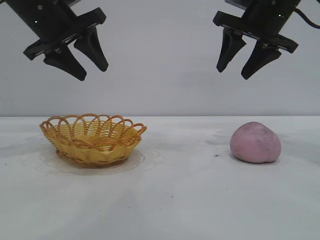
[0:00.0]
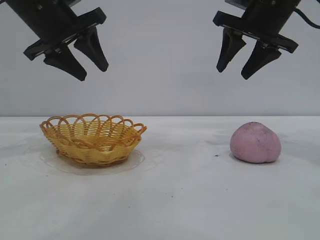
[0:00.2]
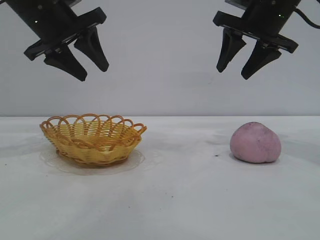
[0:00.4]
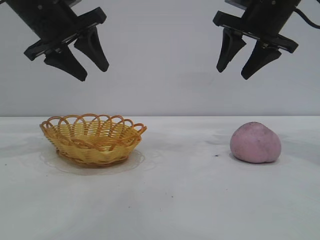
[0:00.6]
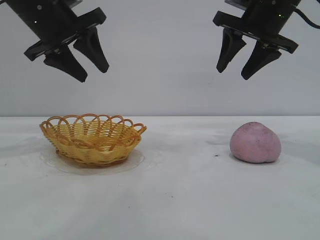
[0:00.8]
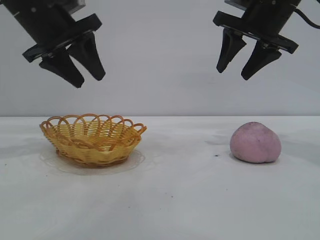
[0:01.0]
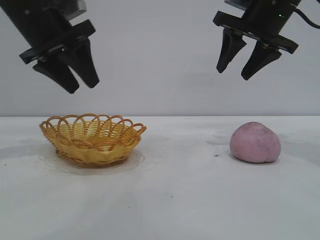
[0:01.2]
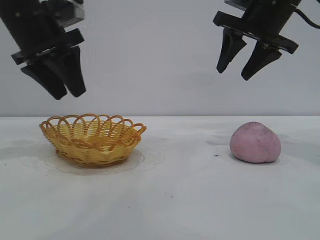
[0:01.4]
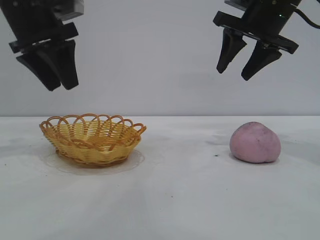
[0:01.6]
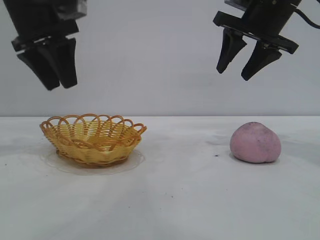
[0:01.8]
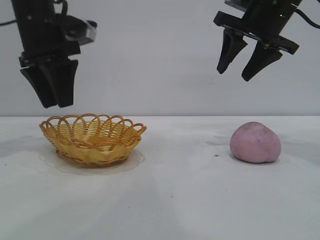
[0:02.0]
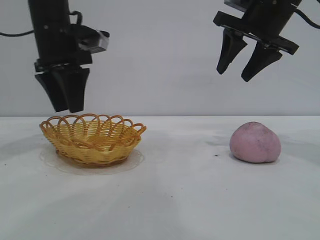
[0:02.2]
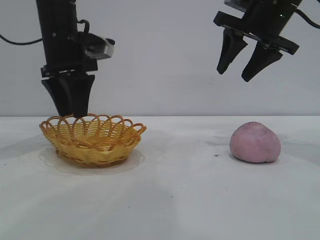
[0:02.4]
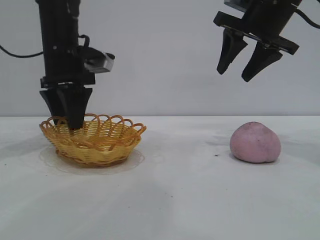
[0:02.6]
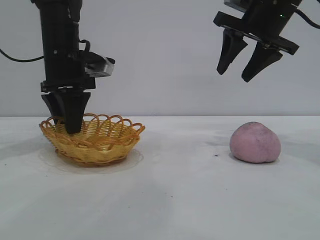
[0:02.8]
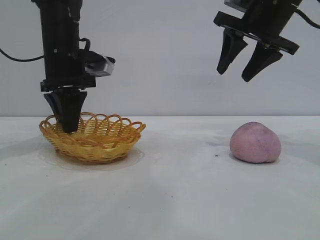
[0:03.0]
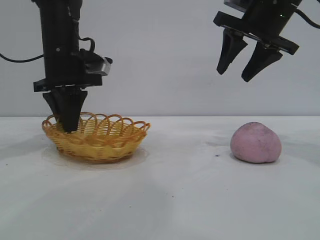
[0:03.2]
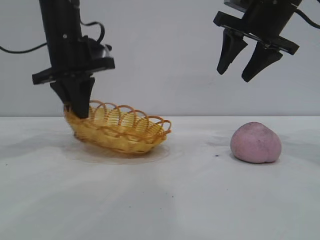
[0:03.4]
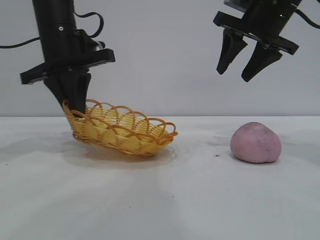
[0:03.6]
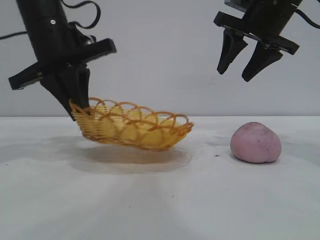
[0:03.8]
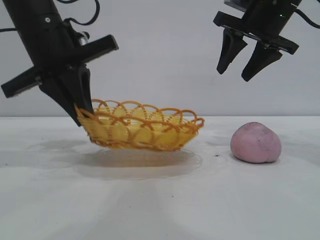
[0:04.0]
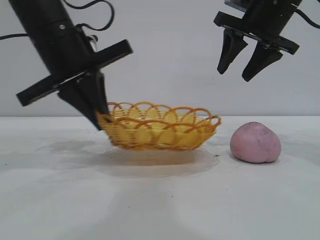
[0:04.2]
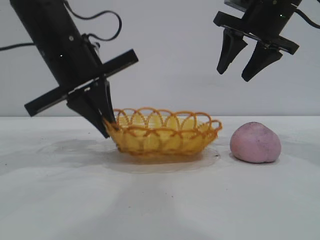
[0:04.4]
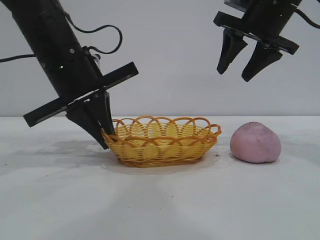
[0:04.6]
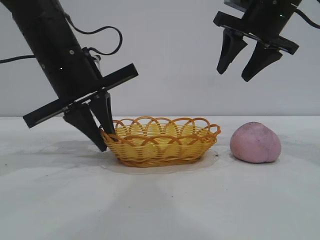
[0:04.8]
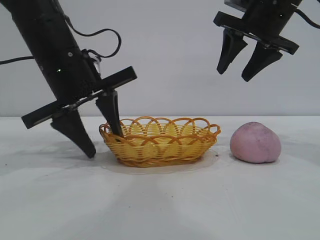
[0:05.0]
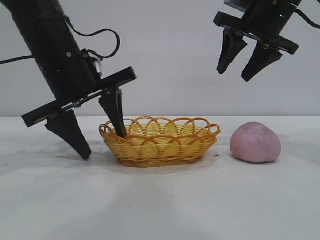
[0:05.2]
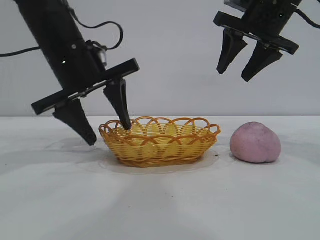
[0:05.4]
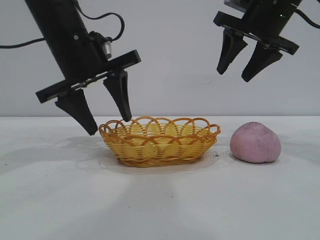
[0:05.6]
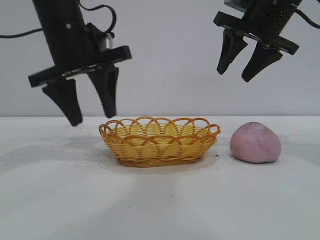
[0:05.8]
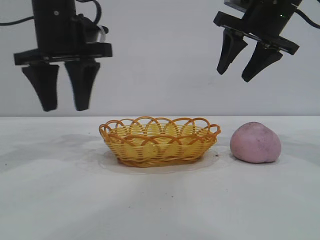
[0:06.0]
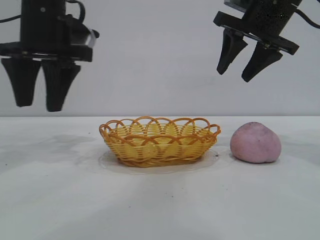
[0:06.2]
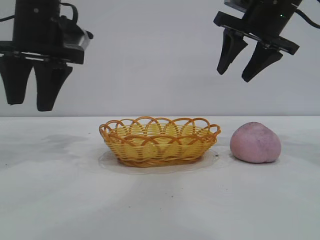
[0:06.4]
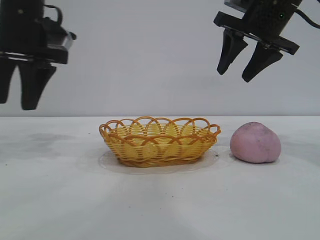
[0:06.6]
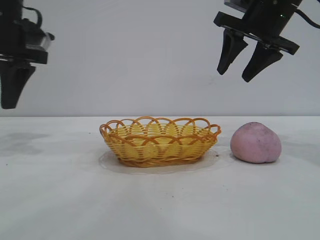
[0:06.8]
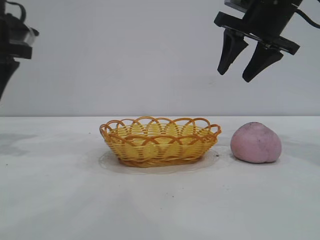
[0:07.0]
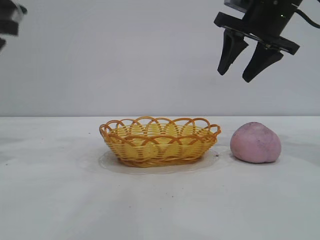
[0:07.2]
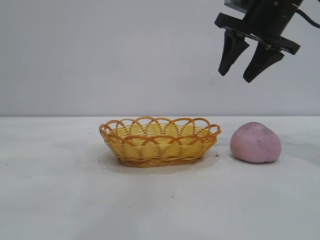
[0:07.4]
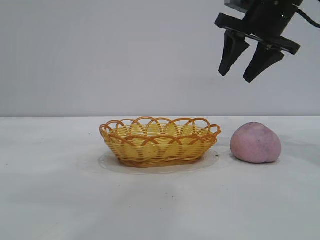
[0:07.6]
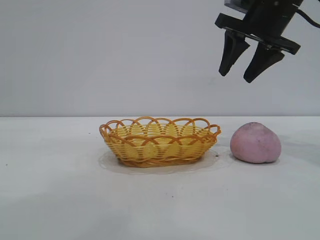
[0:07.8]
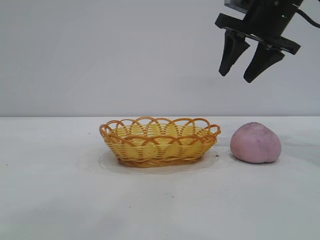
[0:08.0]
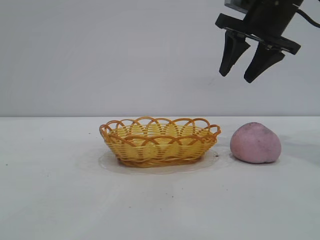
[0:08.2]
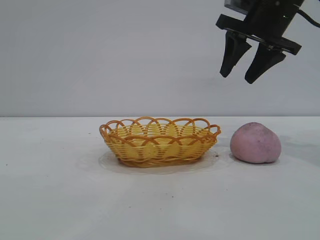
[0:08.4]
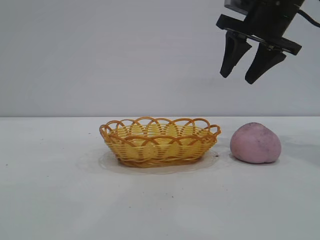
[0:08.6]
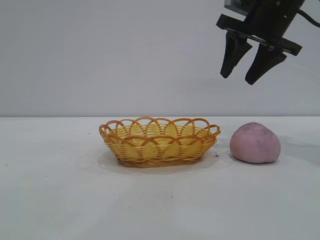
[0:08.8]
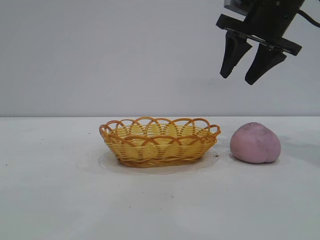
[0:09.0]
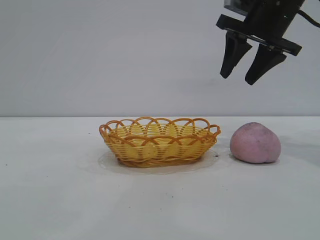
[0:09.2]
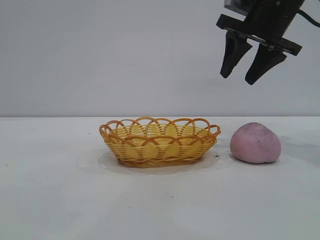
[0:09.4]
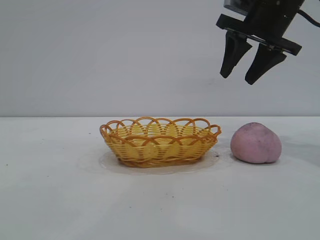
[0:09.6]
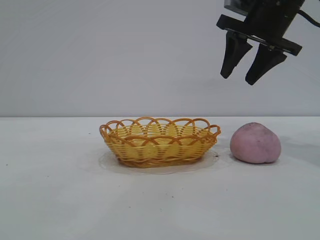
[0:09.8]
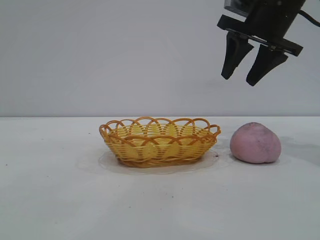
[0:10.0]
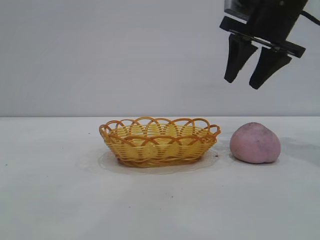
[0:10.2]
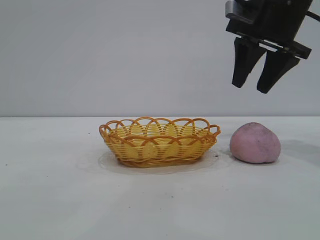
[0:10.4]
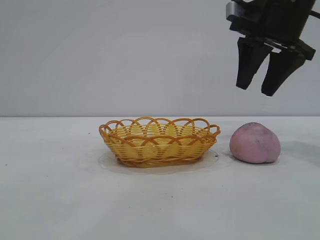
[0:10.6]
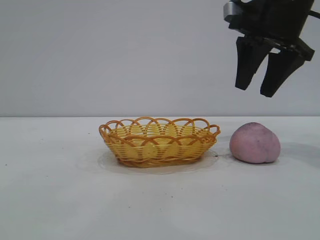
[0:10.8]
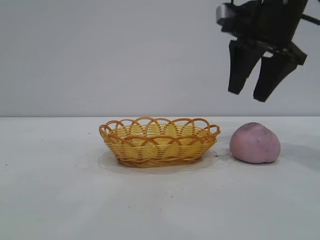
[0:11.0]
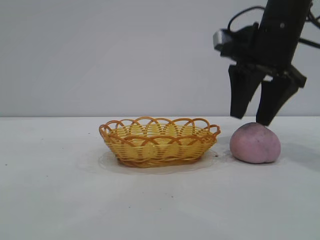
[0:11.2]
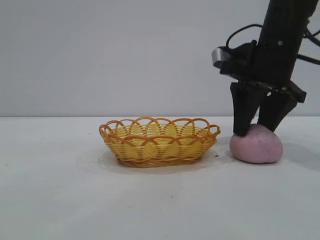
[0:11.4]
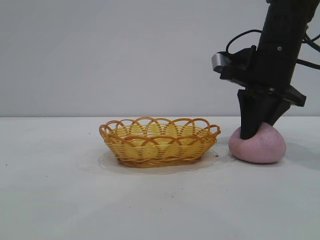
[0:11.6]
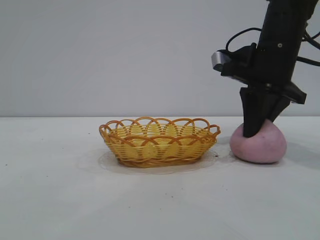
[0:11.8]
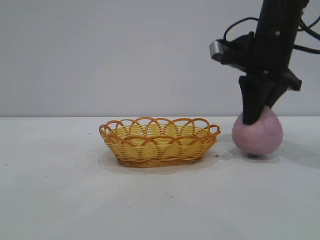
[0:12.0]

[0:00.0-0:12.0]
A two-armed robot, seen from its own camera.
Task of the whole recording: pick up the peach and put it into the basket.
Step, 0:00.0 to 0:06.0: Move the basket to the center of view.

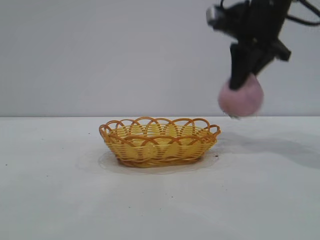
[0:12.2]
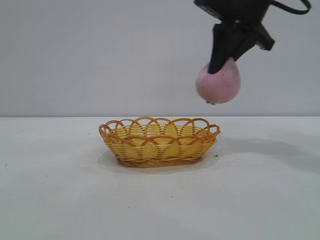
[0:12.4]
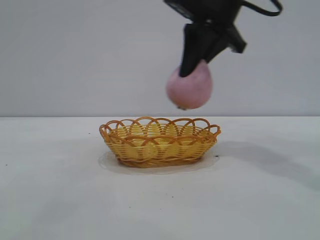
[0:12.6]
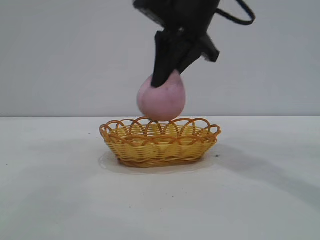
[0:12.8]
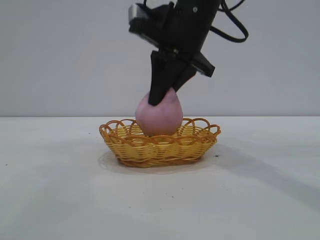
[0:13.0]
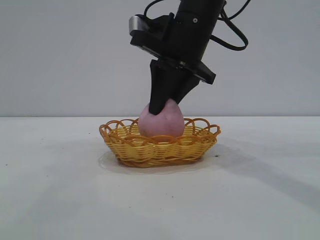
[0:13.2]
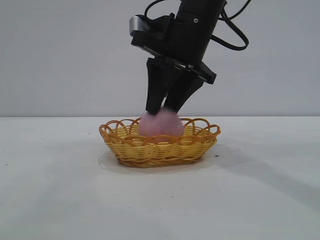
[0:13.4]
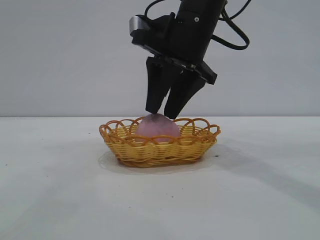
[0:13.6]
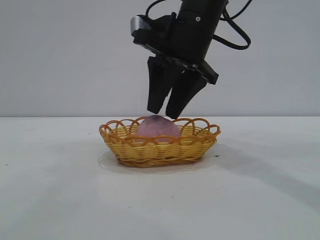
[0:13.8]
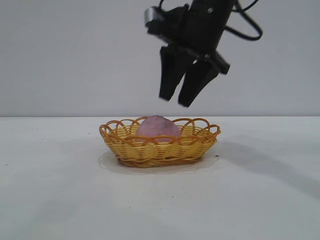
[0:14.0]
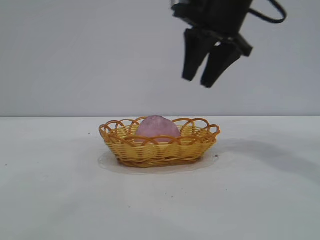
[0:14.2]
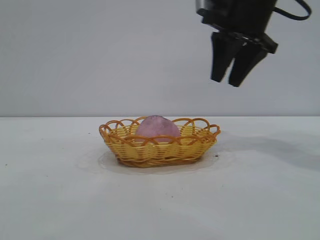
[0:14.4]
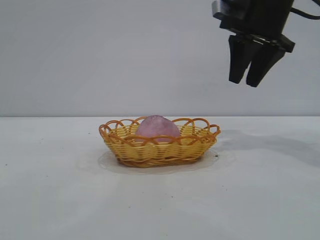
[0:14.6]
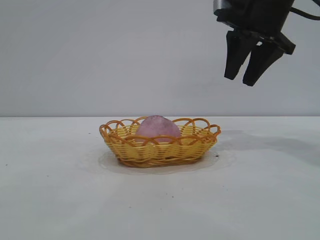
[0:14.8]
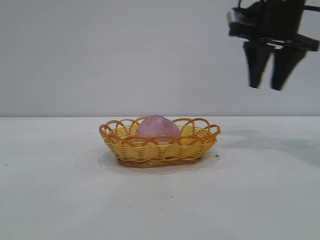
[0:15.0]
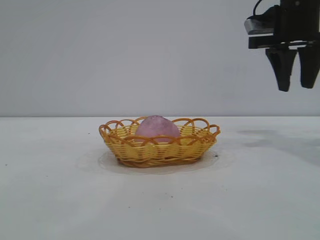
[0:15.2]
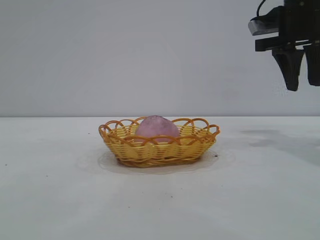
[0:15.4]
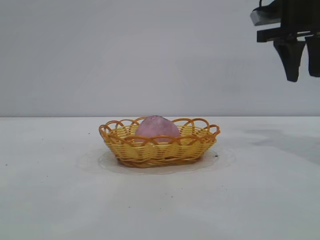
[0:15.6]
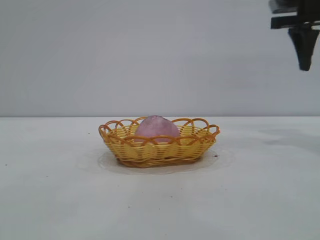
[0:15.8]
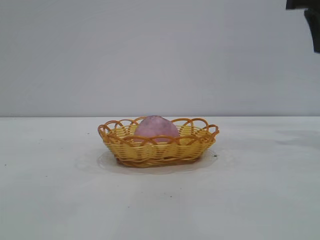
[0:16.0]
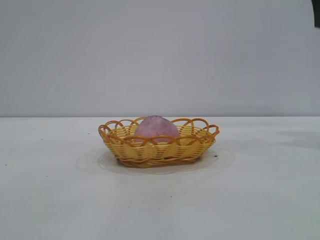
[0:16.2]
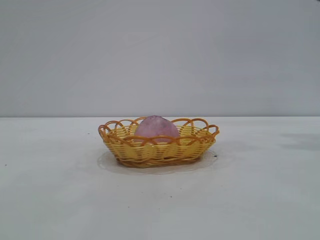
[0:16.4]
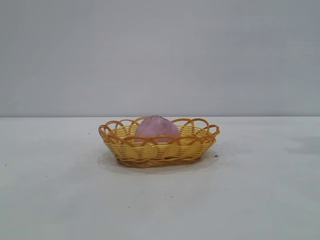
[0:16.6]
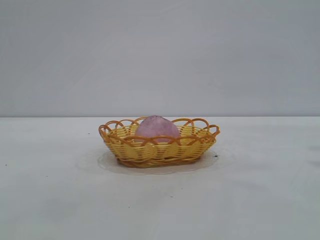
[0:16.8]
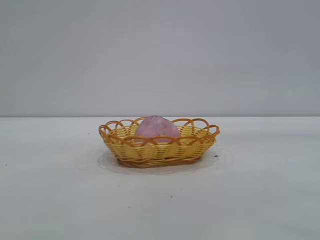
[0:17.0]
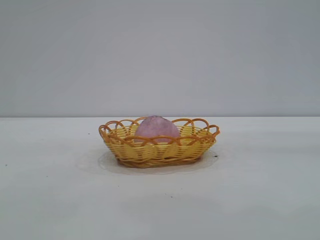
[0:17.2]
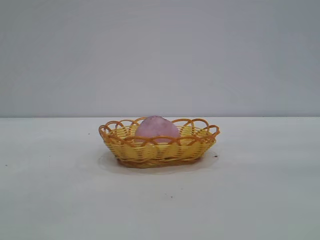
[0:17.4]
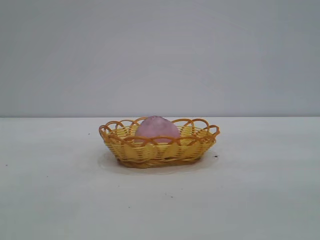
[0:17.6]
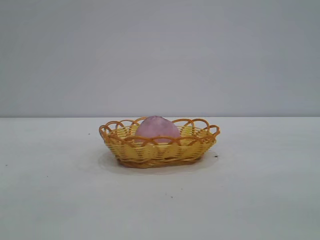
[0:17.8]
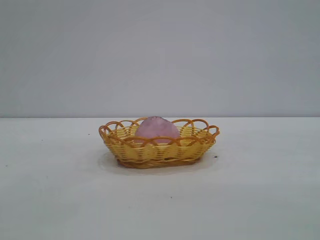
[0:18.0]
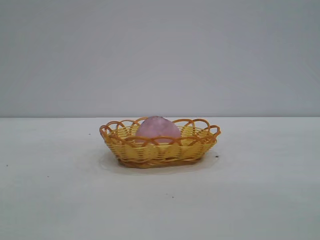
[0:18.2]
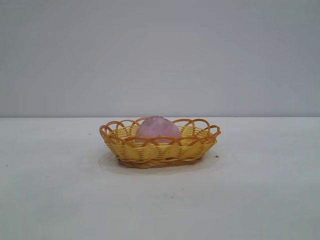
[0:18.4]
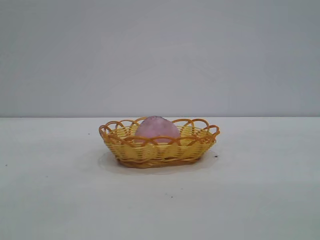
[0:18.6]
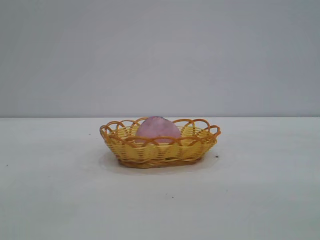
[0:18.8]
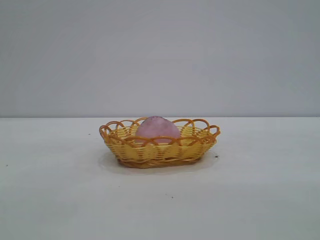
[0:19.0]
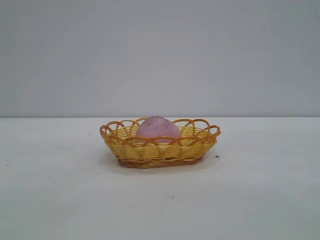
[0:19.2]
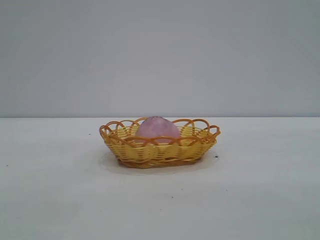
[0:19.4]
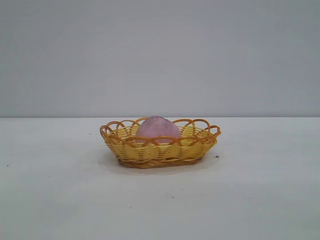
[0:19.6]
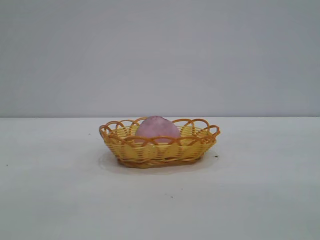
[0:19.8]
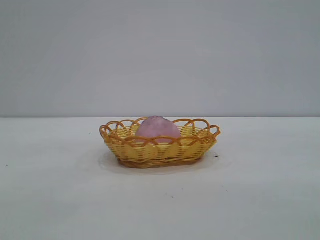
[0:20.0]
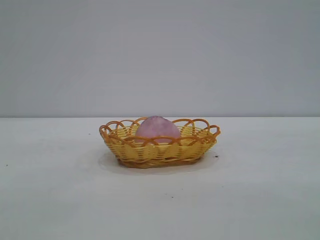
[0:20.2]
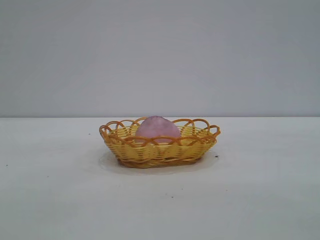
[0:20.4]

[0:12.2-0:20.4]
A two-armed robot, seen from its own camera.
Task of the whole recording: pick up the peach and put it into the basket.
Step, 0:12.2 to 0:14.2: place the peach into the basket.
